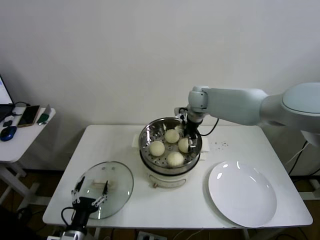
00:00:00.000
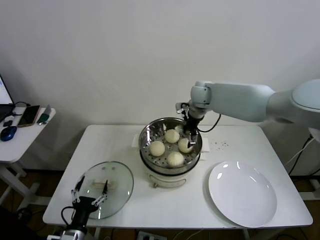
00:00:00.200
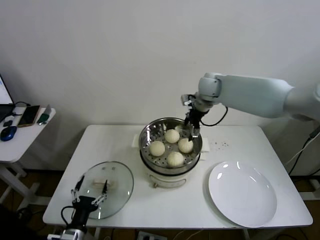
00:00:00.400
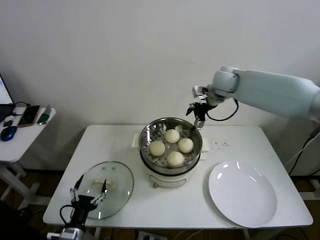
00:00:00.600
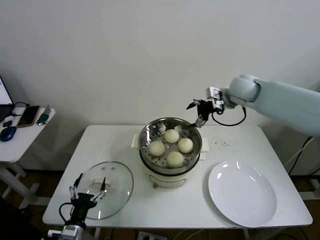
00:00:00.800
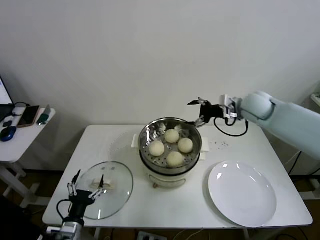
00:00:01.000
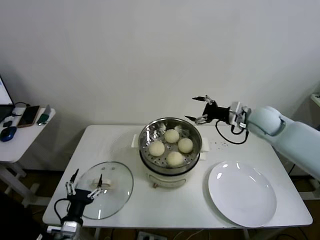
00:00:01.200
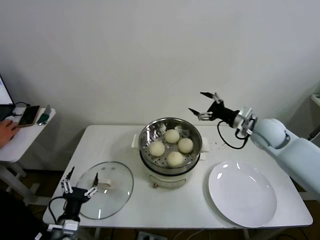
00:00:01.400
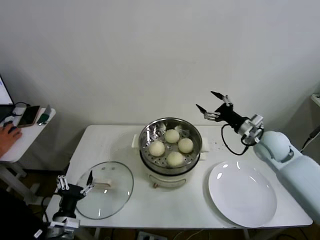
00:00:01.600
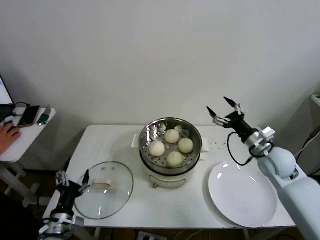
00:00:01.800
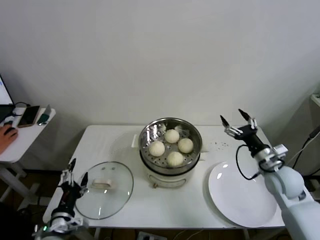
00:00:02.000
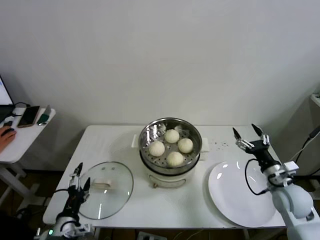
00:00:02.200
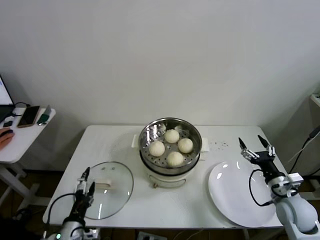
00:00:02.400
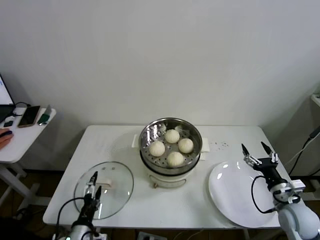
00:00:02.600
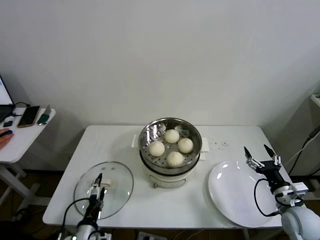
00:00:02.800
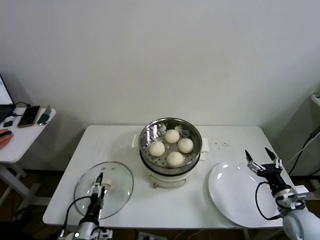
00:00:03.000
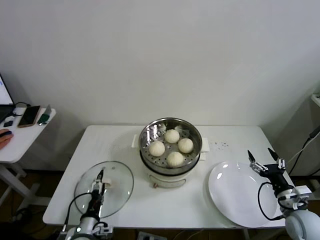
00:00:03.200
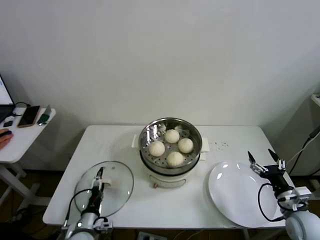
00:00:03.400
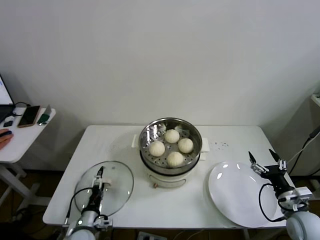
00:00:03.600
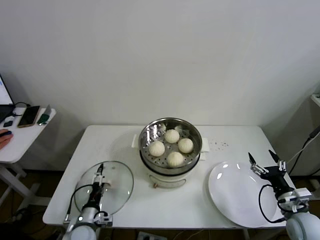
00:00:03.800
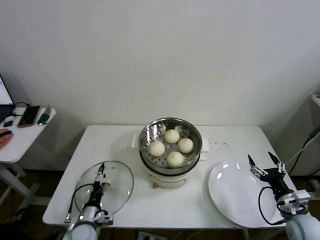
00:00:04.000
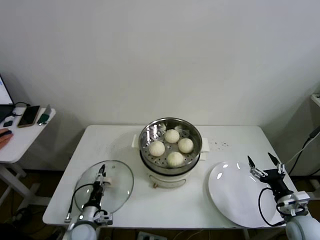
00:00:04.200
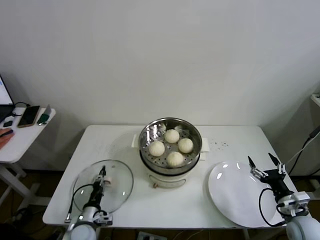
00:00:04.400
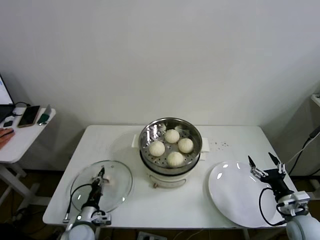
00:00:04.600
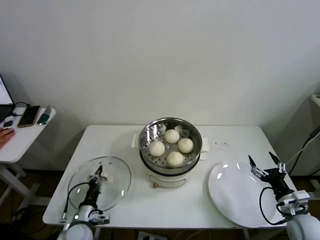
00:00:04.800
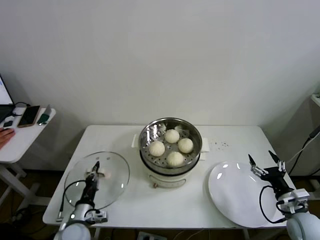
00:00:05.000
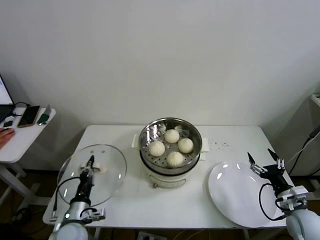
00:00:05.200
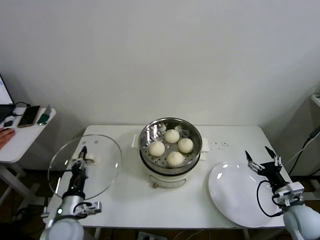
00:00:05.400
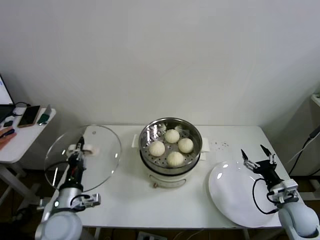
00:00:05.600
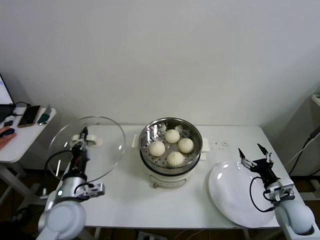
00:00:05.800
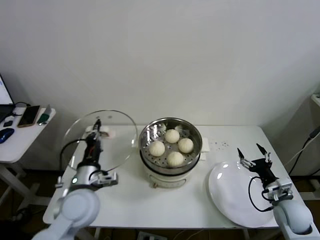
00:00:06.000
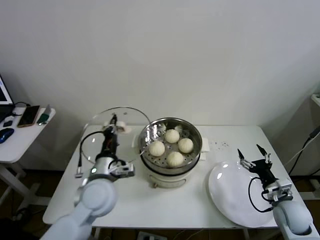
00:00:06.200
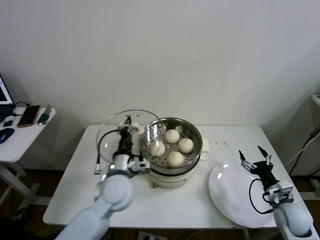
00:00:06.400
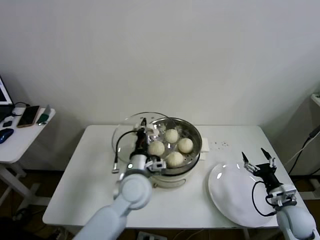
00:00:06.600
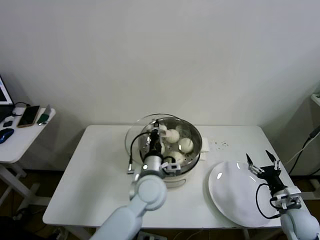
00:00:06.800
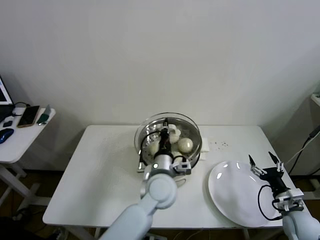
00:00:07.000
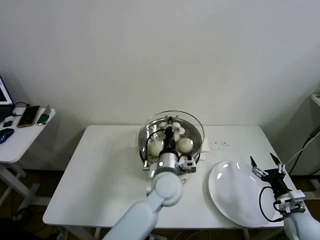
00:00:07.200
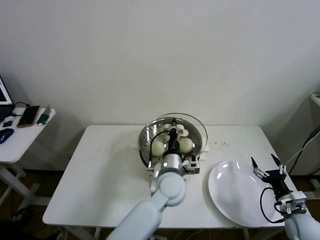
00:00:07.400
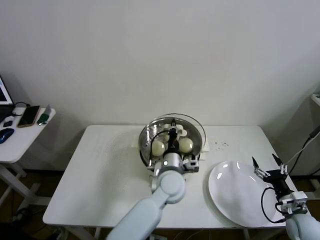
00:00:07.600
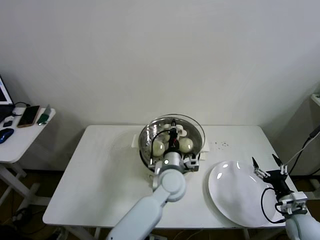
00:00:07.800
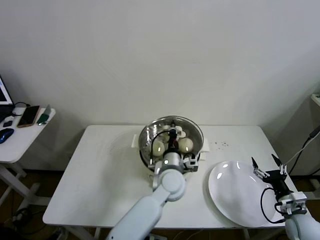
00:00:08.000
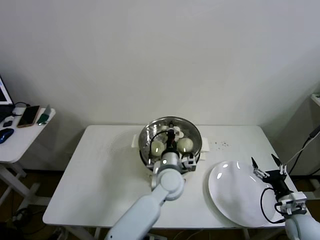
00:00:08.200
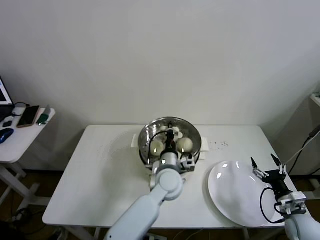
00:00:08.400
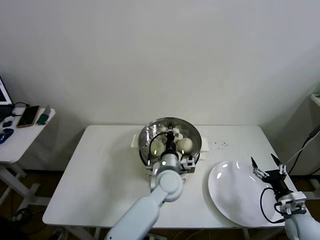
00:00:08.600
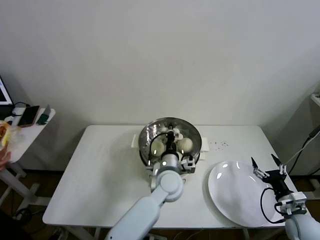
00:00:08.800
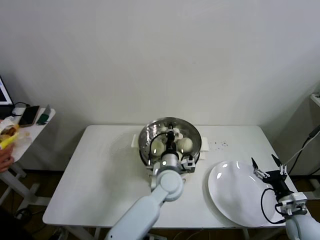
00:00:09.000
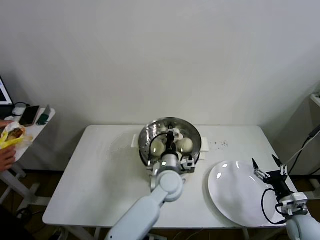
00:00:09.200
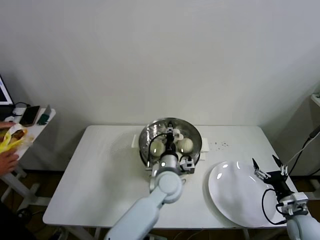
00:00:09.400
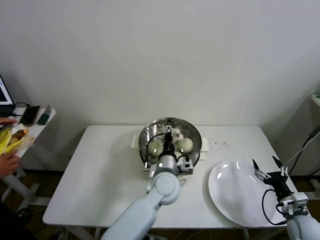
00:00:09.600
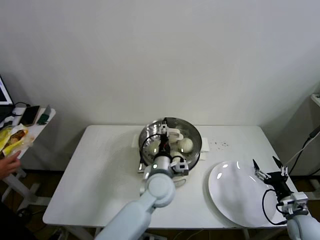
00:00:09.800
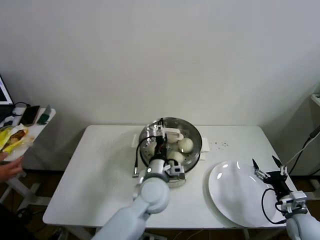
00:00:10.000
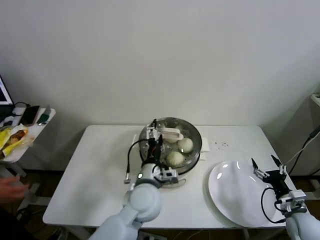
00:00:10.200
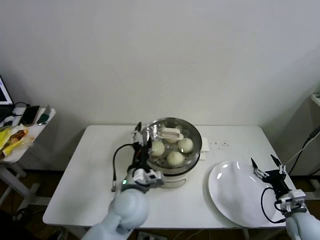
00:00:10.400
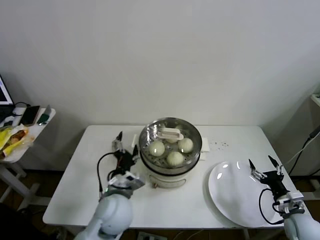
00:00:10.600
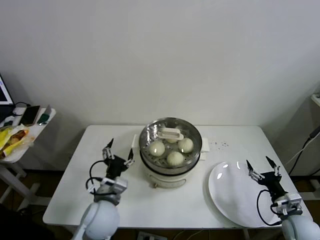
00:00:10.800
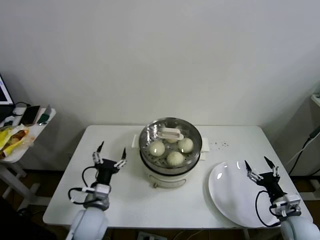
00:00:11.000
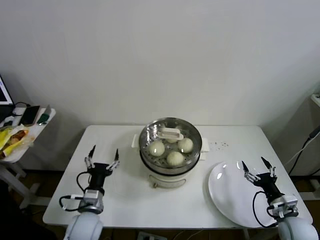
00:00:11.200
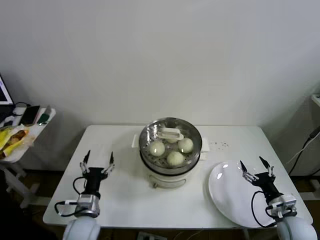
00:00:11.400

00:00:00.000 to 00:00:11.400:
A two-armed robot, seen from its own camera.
Step, 00:00:00.000 to 00:00:04.600: Grasp the pot lid with left gripper.
Step, 00:00:04.800 to 00:00:09.200: Place the pot lid on the steamer with left gripper.
00:00:00.000 to 00:00:01.400: The right gripper heads to the right and backward, covering approximately 25 cm.
00:00:01.400 to 00:00:02.800: The right gripper moves backward and downward, roughly 25 cm.
00:00:02.800 to 00:00:04.200: The left gripper goes some 10 cm forward and downward.
00:00:04.200 to 00:00:05.600: The left gripper is displaced upward by approximately 15 cm, and closes its fingers.
00:00:05.600 to 00:00:07.200: The left gripper heads to the right, covering some 30 cm.
00:00:07.200 to 00:00:08.600: The left gripper shifts by roughly 5 cm.
00:00:08.600 to 00:00:10.000: The left gripper changes place by about 5 cm, and opens up.
00:00:10.000 to 00:00:11.400: The left gripper moves to the left and downward, approximately 25 cm.

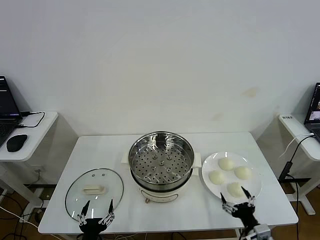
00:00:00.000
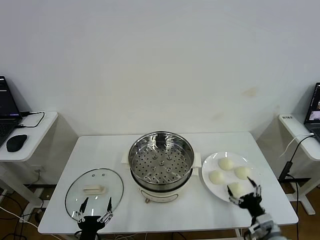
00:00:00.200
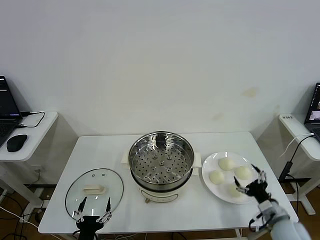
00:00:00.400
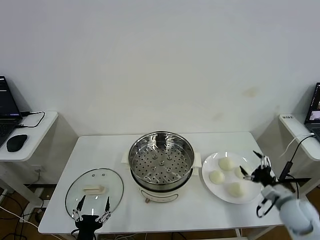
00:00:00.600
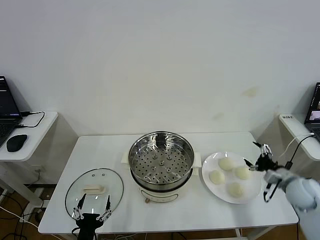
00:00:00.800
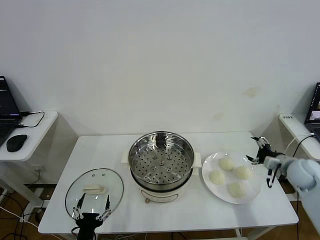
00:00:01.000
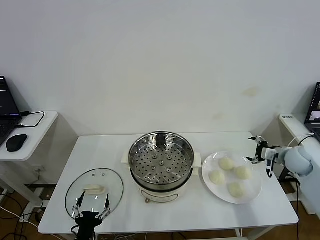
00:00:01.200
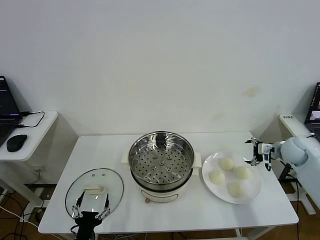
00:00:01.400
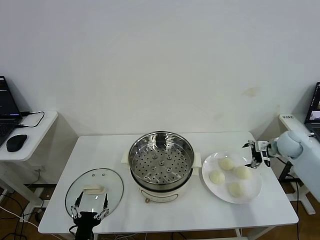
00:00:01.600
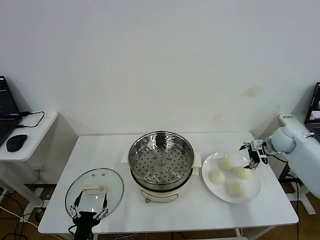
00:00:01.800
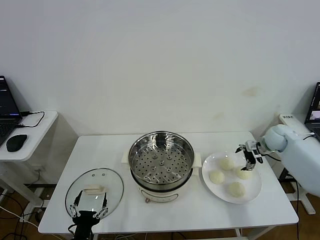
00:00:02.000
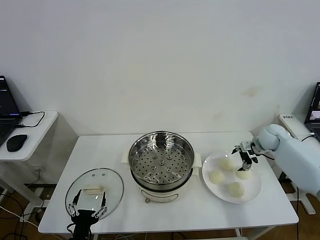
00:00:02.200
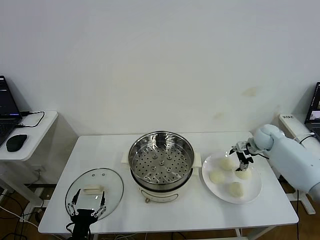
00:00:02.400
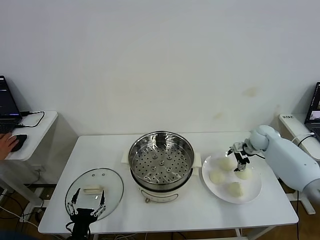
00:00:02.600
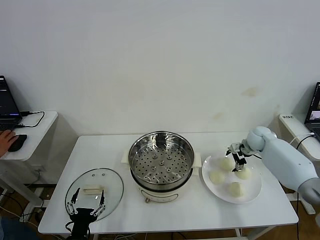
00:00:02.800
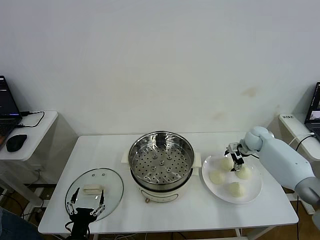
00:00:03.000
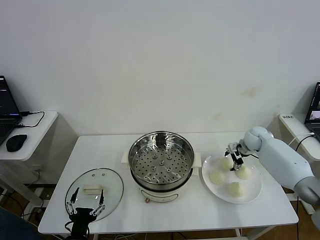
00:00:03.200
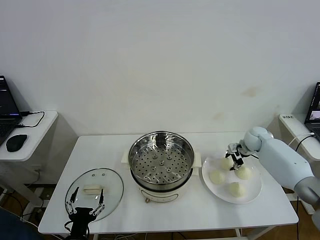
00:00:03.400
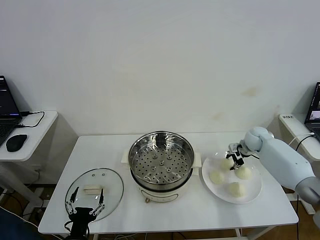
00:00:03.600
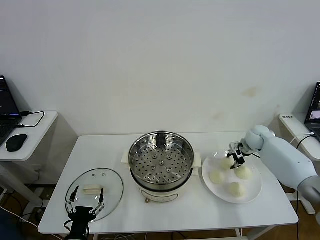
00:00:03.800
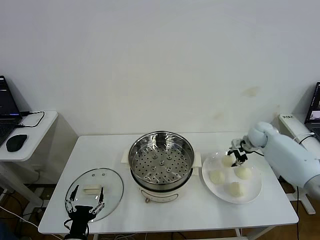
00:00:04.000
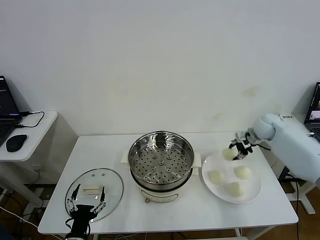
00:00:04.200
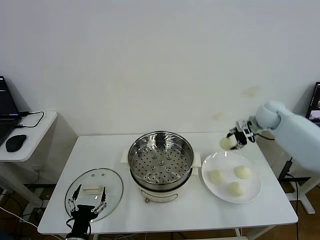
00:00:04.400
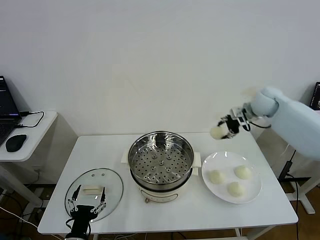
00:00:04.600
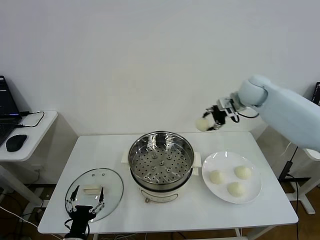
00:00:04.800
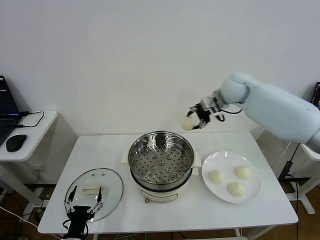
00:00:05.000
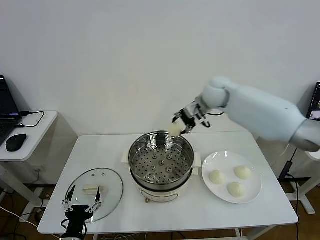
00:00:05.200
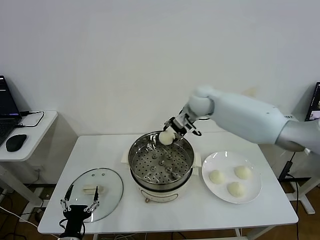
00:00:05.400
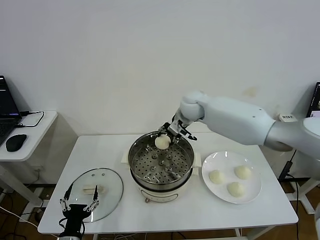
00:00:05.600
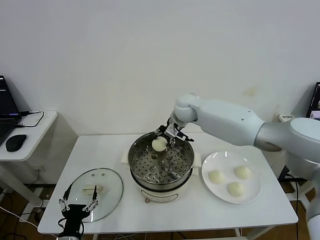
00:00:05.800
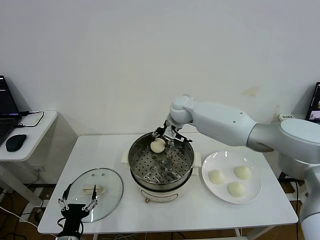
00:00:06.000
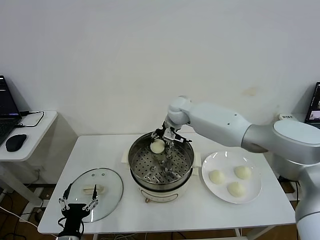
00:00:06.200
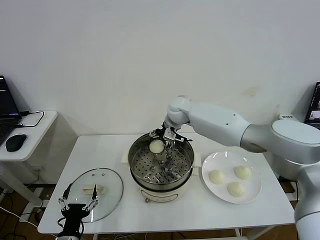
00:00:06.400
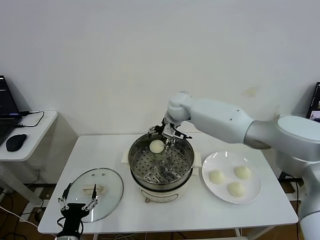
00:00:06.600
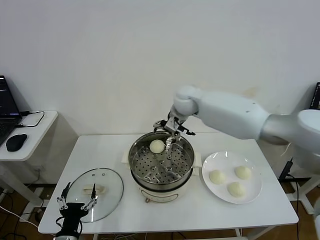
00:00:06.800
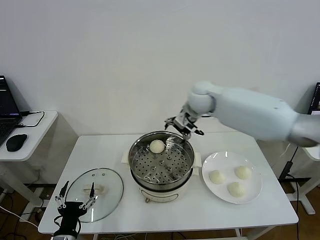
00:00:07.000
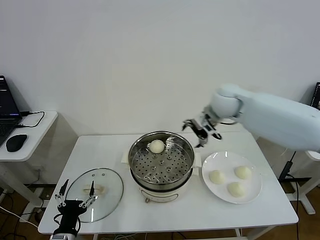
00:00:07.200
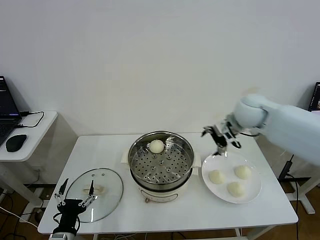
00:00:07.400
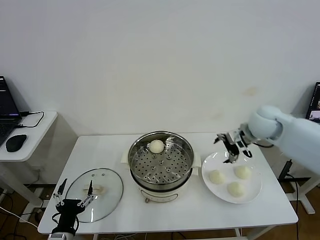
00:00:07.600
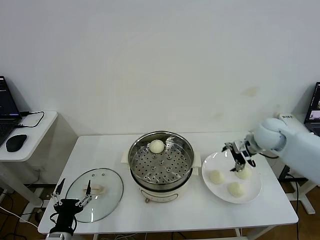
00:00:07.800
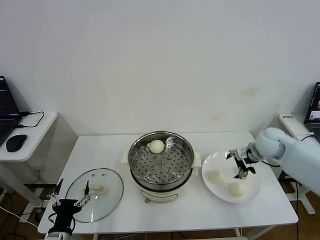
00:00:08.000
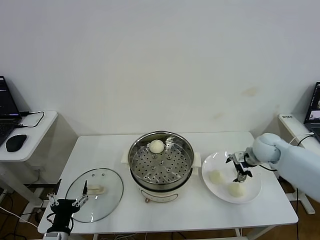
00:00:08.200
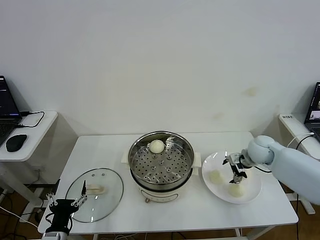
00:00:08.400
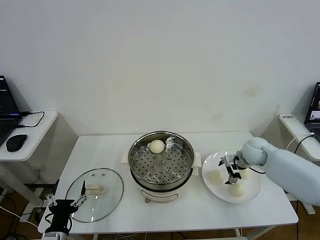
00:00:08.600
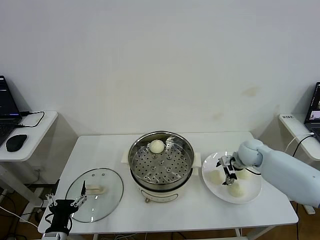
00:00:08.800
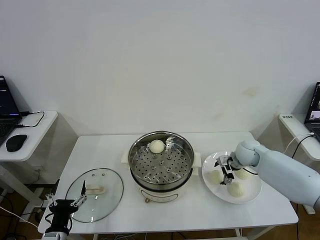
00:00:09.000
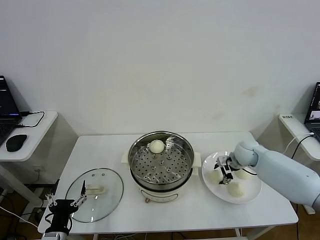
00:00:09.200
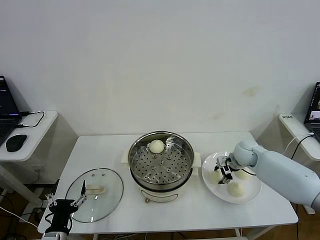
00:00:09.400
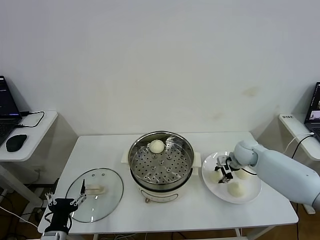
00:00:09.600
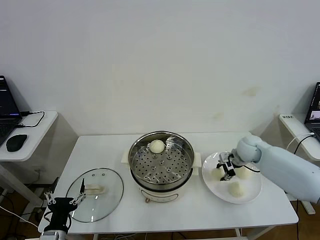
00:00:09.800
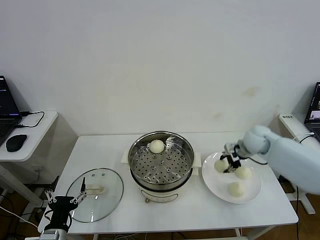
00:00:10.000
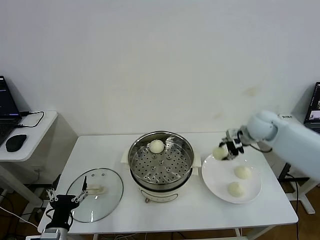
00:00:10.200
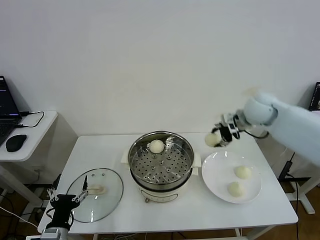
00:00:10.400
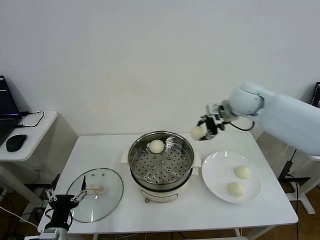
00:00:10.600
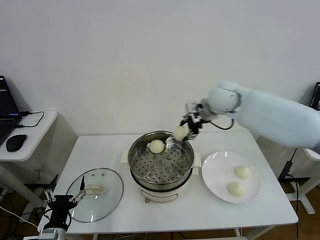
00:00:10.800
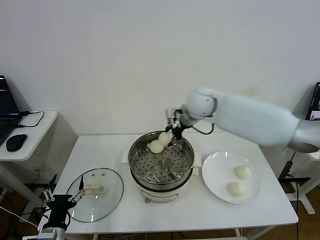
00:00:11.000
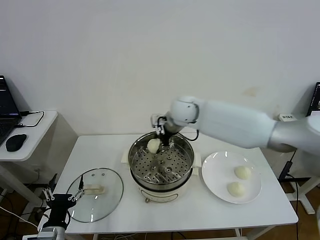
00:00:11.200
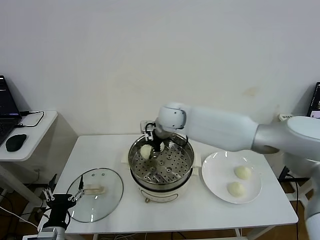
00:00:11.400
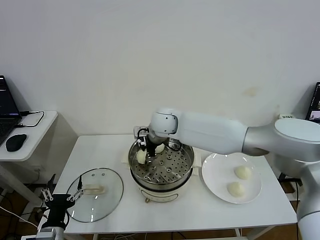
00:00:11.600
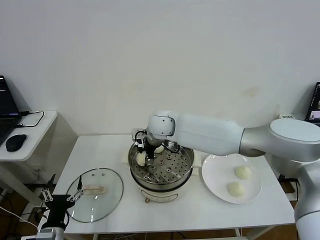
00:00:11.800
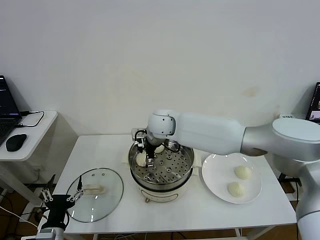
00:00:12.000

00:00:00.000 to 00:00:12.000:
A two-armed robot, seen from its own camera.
Step, 00:00:00.000 to 00:00:03.400: Grasp the baozi in the plate with right gripper.
Step, 00:00:03.800 to 00:00:06.200: Place the baozi on the steamer with right gripper.
Step, 00:00:06.400 to 00:00:09.400: Grasp the baozi in the plate with right gripper.
Step, 00:00:09.800 to 00:00:11.800: Place the baozi on the steamer with right gripper.
00:00:01.600 to 00:00:03.000: The right gripper shifts about 10 cm to the left, forward and downward.
00:00:03.000 to 00:00:04.400: The right gripper is displaced upward by about 15 cm, and closes its fingers.
00:00:04.400 to 00:00:06.000: The right gripper moves to the left, approximately 30 cm.
00:00:06.000 to 00:00:07.600: The right gripper shifts about 30 cm to the right and backward, and opens up.
00:00:07.600 to 00:00:09.000: The right gripper goes some 15 cm downward.
00:00:09.000 to 00:00:10.400: The right gripper is displaced upward by about 20 cm, and closes.
00:00:10.400 to 00:00:12.000: The right gripper heads to the left, covering some 30 cm, and opens.
